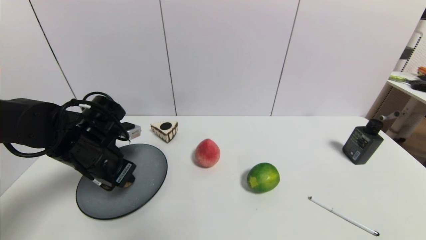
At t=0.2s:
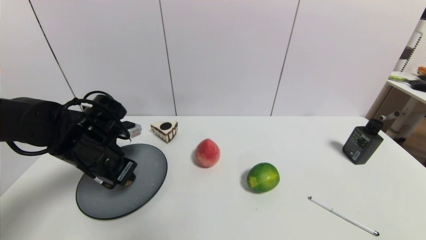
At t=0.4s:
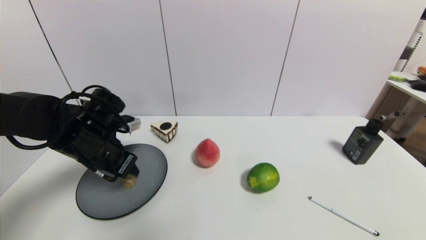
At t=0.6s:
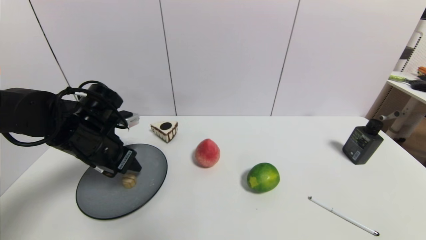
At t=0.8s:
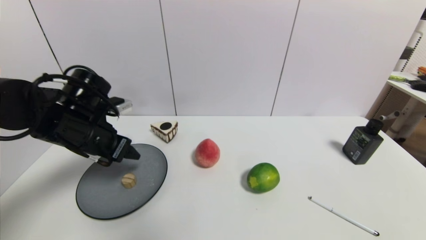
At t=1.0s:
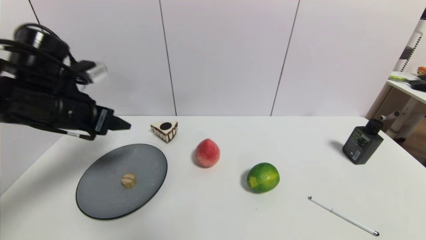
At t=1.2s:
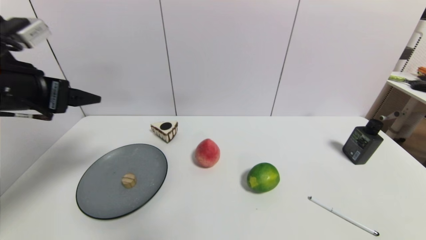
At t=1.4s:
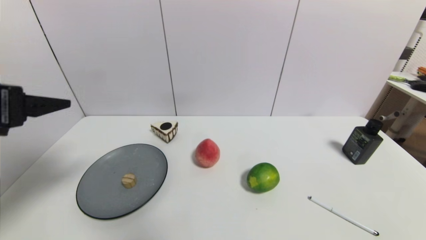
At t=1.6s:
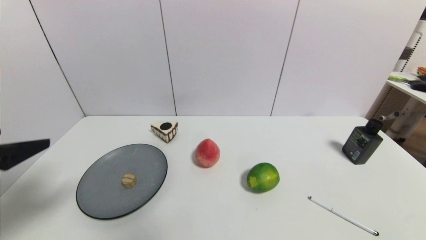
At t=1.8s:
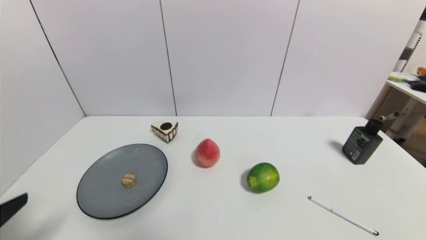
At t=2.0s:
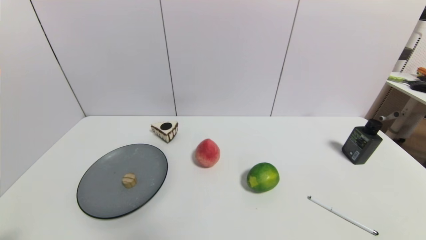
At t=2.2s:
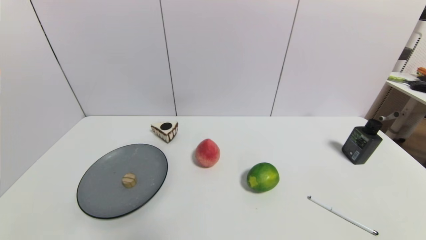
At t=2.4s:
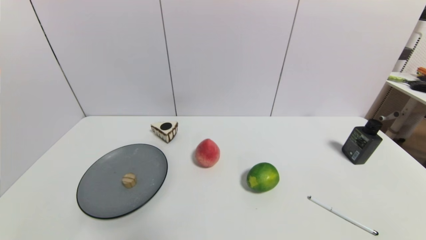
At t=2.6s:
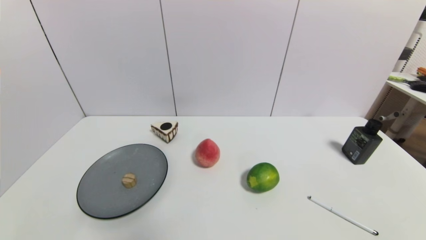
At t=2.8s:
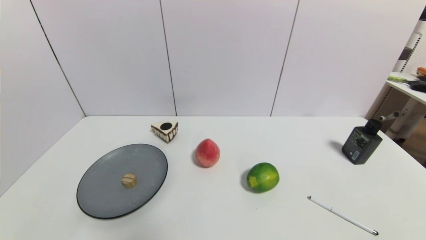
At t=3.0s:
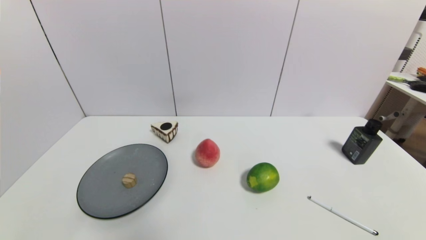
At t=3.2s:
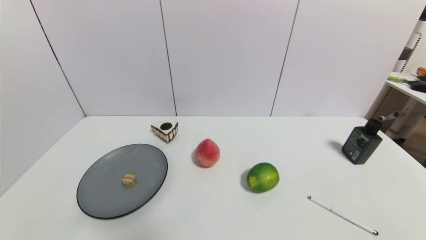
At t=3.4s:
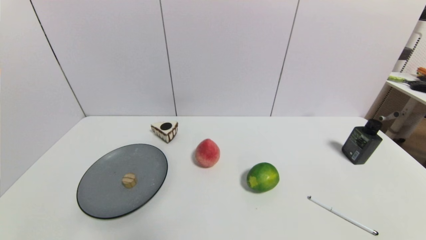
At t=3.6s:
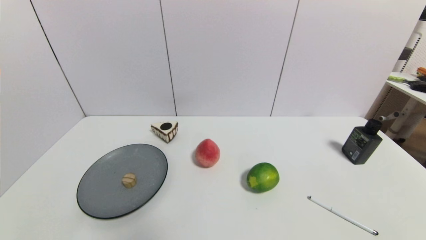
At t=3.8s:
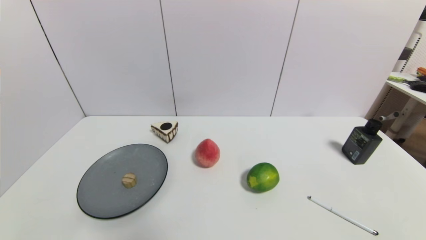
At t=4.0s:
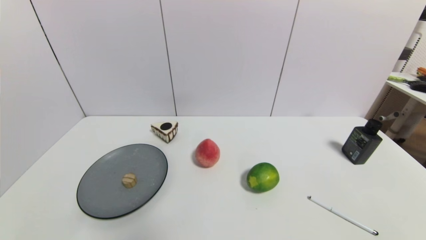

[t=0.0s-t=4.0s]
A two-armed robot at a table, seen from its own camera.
Task of the whole recording: use a gripper to pick the target object and place on the gray plate.
t=0.0s to t=1.4s: The left gripper travels upward, backward and to the left by roughly 20 cm, and opens up.
t=1.4s to t=2.6s: The left gripper heads downward and backward, covering roughly 30 cm.
t=2.6s to t=4.0s: Both grippers stay about where they are.
